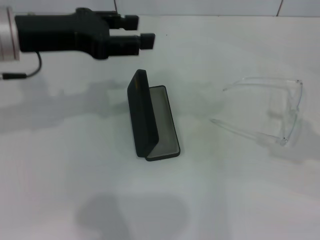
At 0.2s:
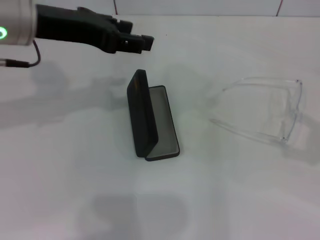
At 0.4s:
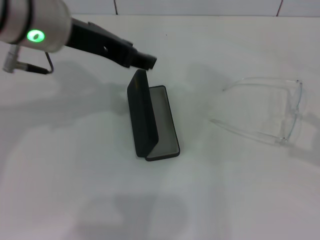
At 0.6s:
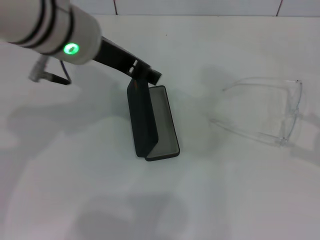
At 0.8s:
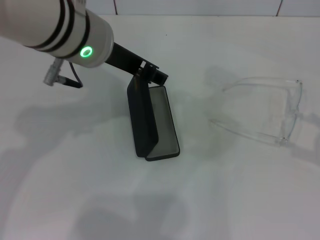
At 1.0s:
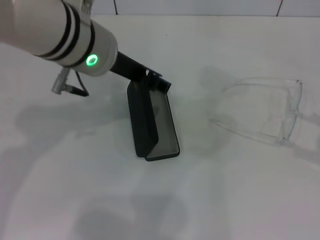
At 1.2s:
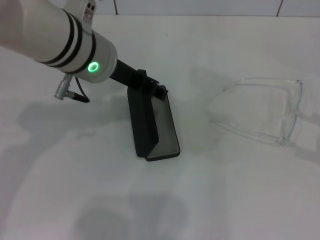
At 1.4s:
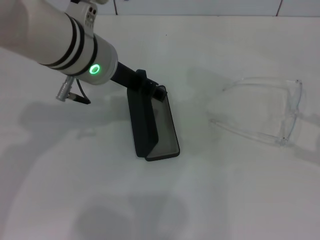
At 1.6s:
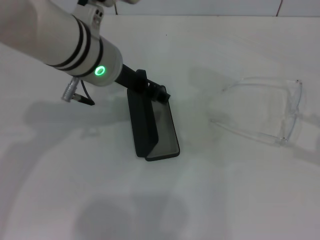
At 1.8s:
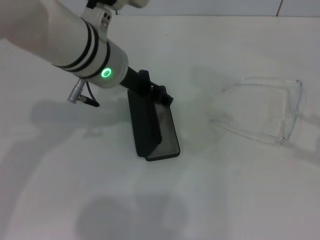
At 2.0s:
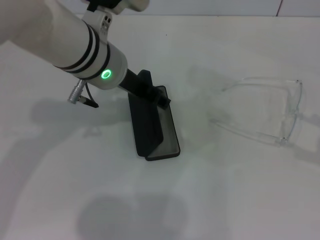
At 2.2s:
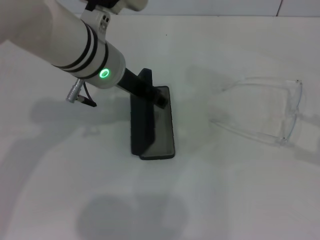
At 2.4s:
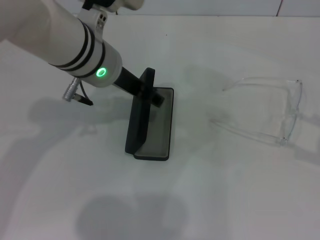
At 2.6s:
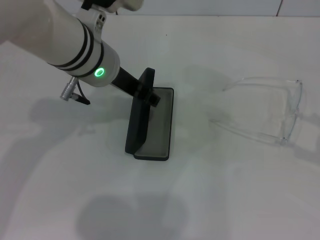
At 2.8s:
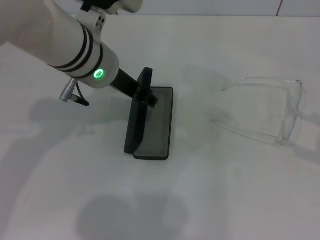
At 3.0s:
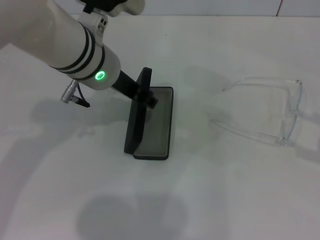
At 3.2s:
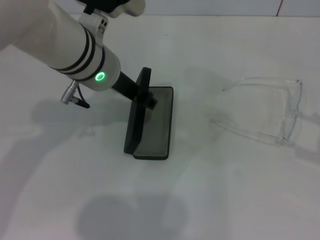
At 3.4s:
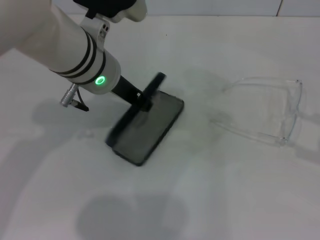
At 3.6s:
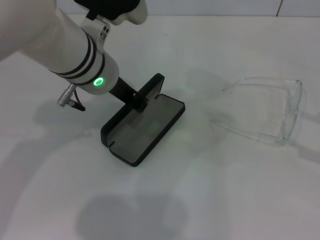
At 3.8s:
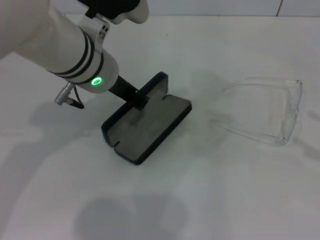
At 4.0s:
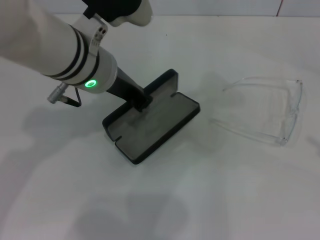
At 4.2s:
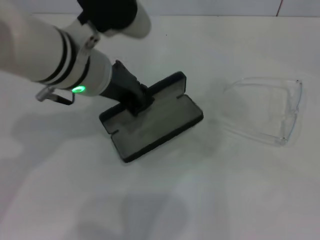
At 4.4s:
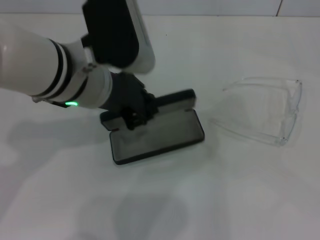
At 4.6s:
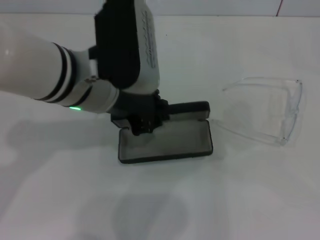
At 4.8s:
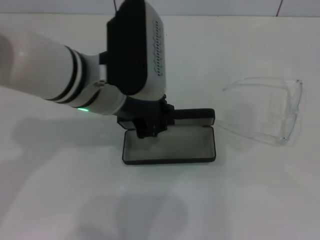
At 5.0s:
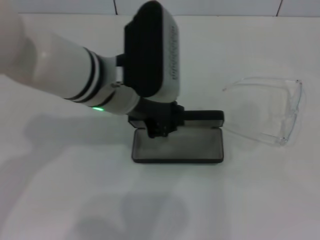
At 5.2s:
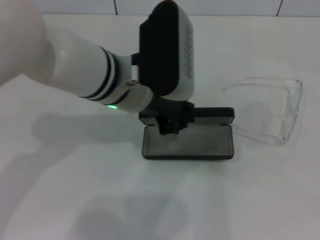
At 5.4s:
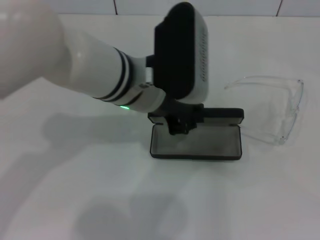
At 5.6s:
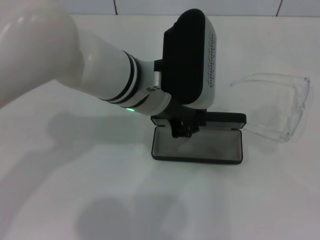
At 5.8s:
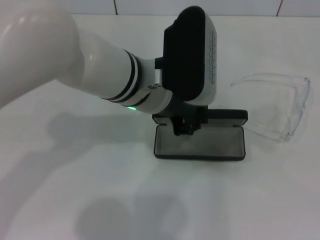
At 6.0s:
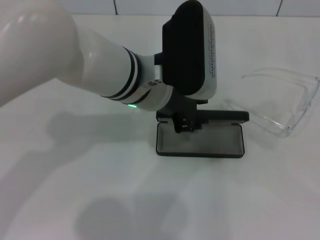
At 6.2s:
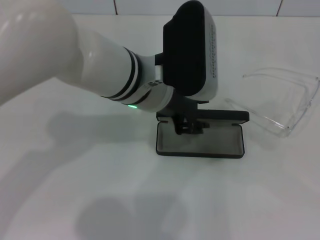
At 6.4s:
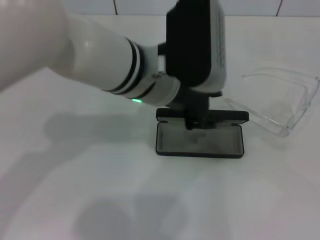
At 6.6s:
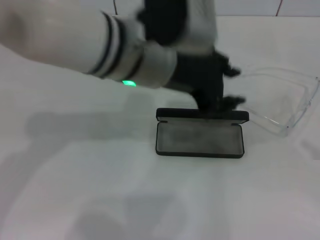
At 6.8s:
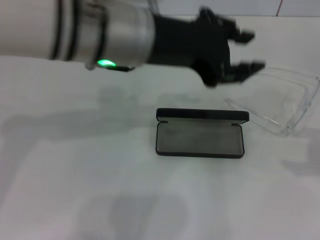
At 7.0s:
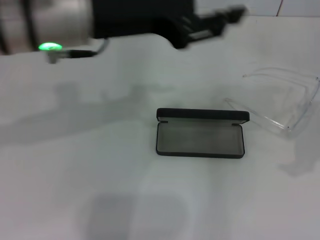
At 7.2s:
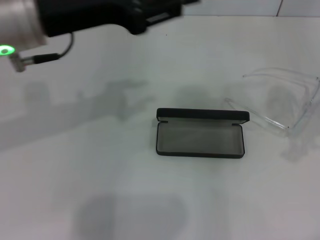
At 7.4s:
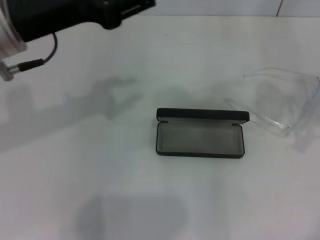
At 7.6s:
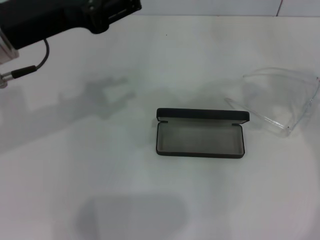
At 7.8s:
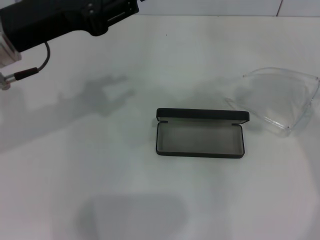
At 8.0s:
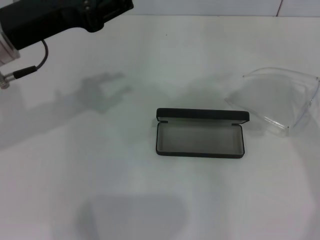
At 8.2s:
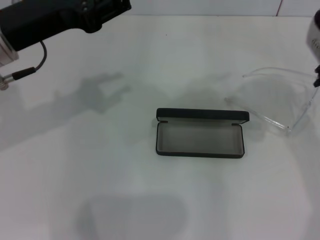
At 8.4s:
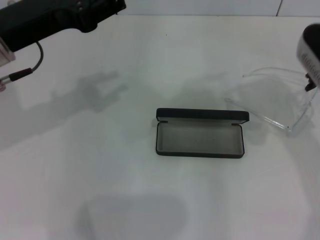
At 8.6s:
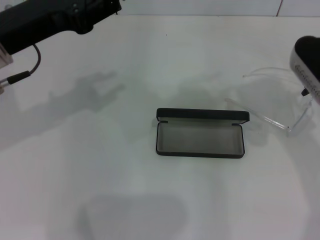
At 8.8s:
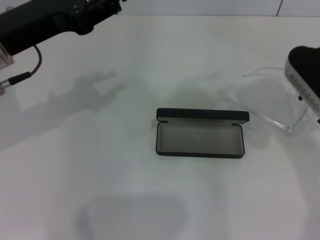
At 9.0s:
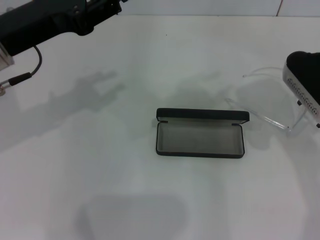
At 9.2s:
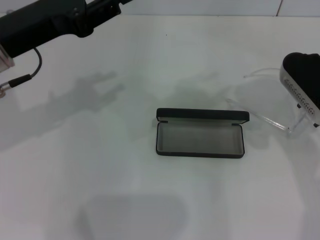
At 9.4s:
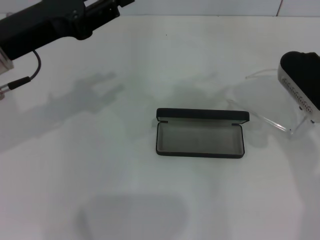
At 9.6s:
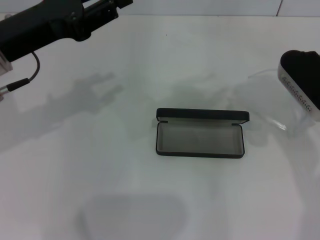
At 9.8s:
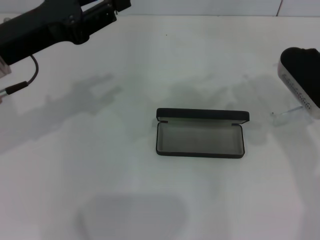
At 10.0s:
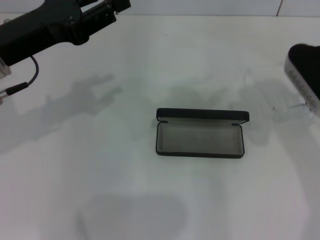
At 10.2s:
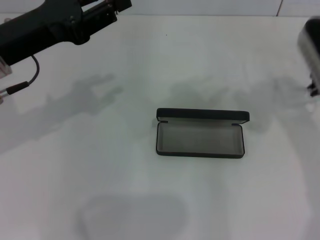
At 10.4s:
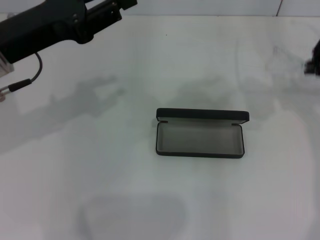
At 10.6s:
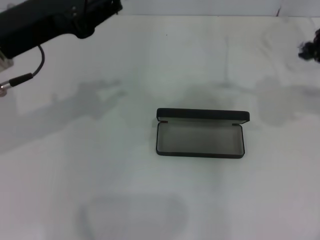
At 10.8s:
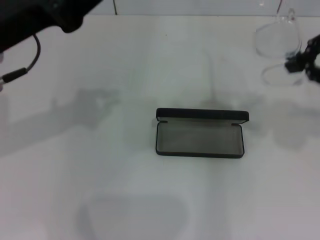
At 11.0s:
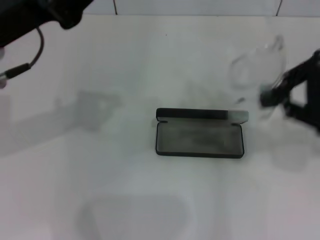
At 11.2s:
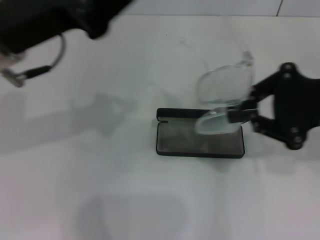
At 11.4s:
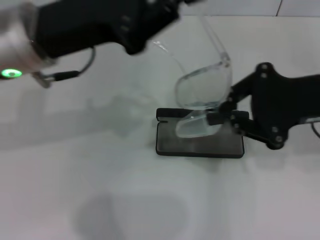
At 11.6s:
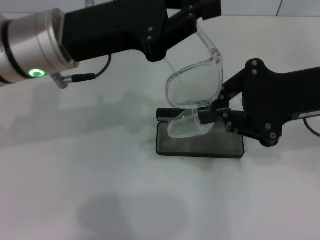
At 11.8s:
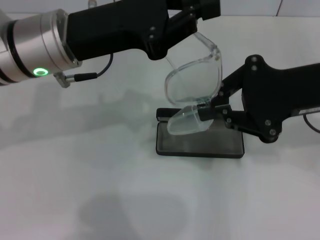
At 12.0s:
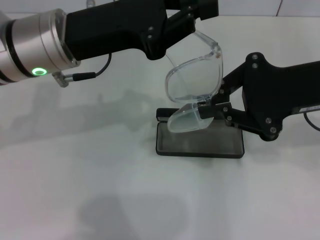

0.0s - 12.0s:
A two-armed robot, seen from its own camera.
Step, 0.0s - 4.0s: Grab the glasses case with your left hand.
Step, 4.2s - 6.2s: Place the glasses case in the center of the table with your left hand.
Step, 6.4s - 9.2s: Grab the eyeglass frame with your right hand.
0.0s - 1.6s: The left gripper travels to the right by about 10 cm.
1.6s - 3.0s: The grippers stay close to where they were, moving slightly.
3.0s - 4.4s: The right gripper is displaced backward by some 10 cm. The left gripper closes its fingers.
4.4s - 6.0s: The left gripper shifts approximately 5 cm to the right.
6.0s - 7.6s: The left gripper shifts approximately 15 cm to the left, and opens, while the right gripper goes roughly 30 cm forward, to the left and upward.
7.6s - 9.0s: The right gripper is displaced downward and to the left by some 15 cm.
9.0s - 10.4s: The right gripper moves upward and to the right, roughly 10 cm, and closes.
10.4s - 12.0s: The left gripper goes roughly 5 cm to the right, and closes up. The right gripper is displaced backward by approximately 10 cm.

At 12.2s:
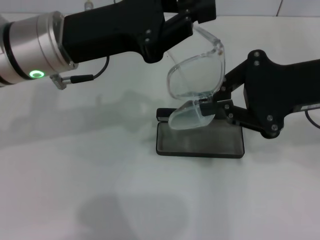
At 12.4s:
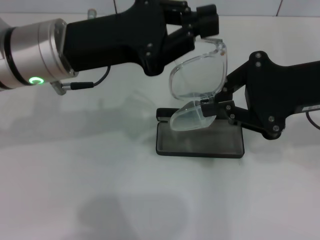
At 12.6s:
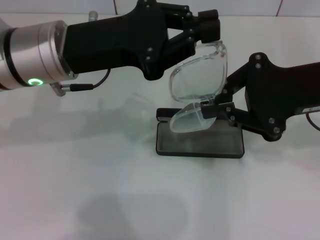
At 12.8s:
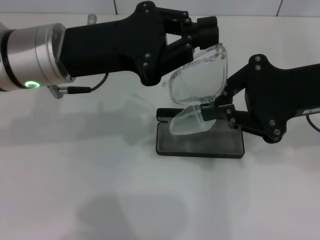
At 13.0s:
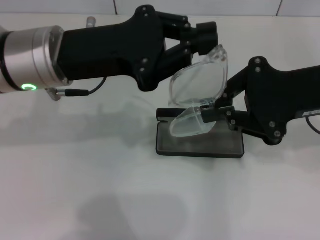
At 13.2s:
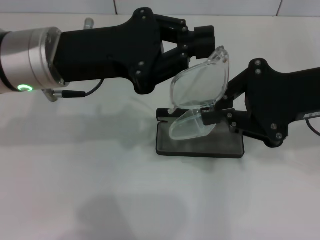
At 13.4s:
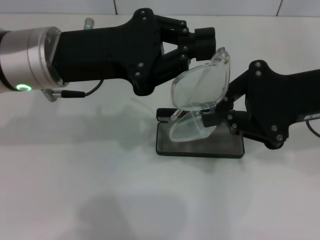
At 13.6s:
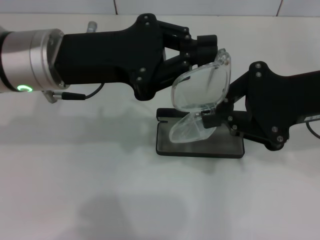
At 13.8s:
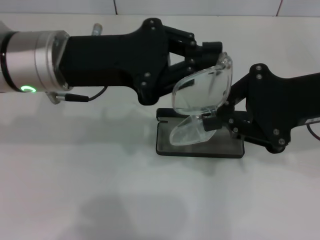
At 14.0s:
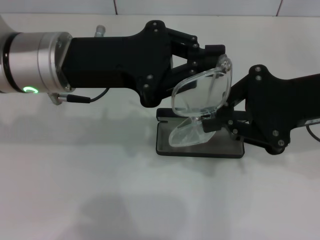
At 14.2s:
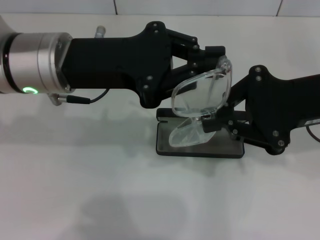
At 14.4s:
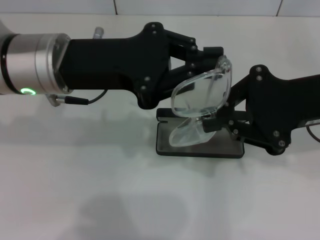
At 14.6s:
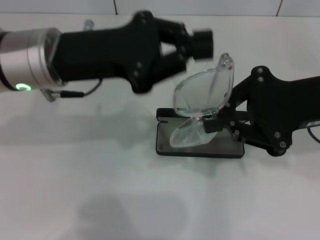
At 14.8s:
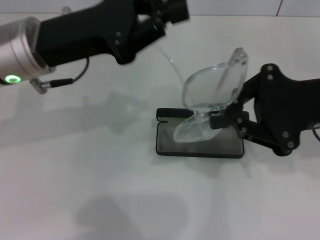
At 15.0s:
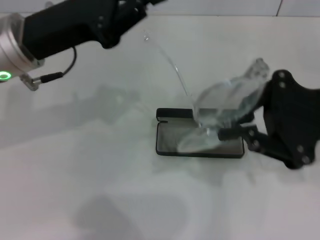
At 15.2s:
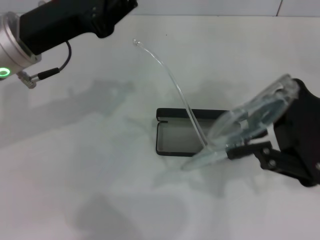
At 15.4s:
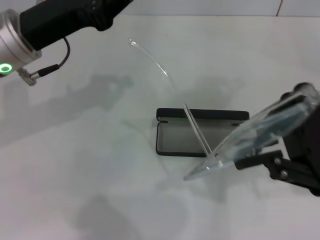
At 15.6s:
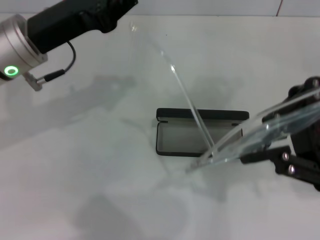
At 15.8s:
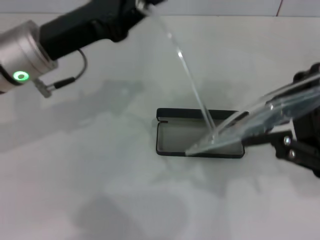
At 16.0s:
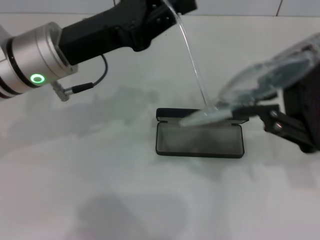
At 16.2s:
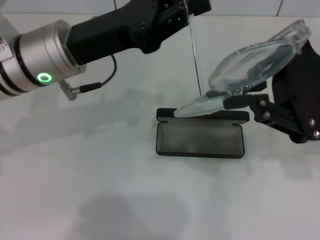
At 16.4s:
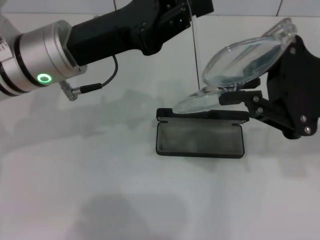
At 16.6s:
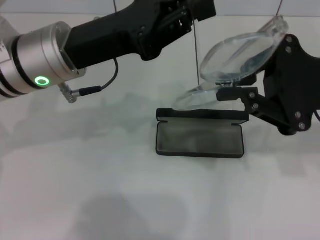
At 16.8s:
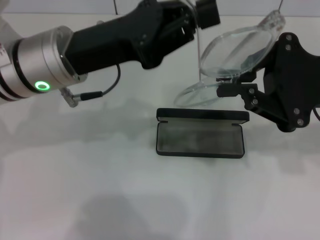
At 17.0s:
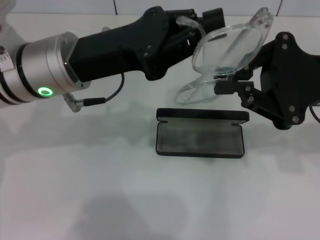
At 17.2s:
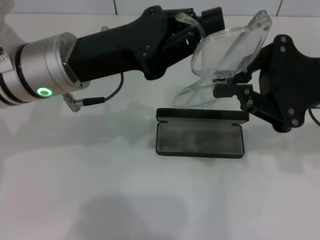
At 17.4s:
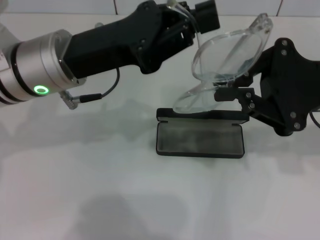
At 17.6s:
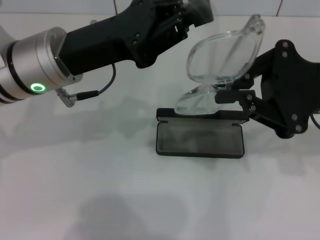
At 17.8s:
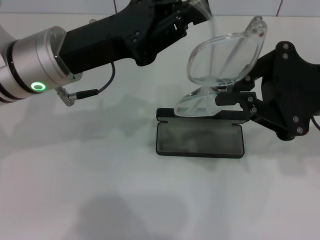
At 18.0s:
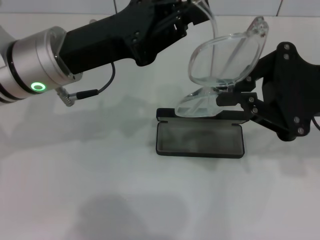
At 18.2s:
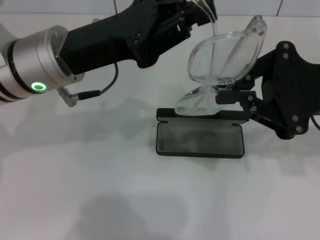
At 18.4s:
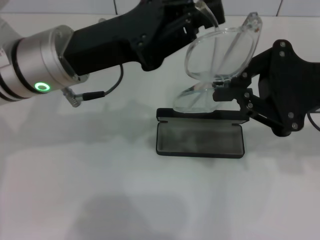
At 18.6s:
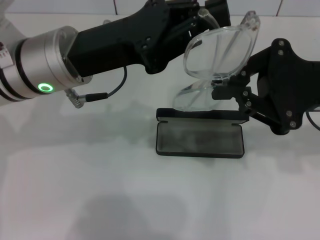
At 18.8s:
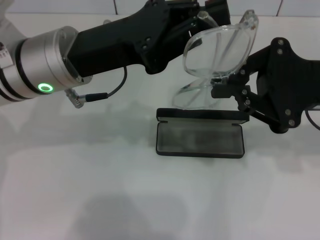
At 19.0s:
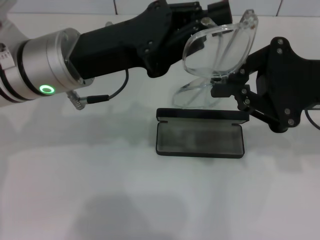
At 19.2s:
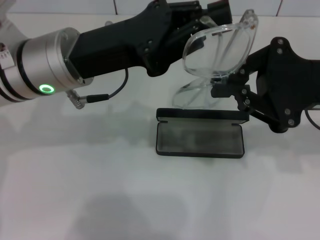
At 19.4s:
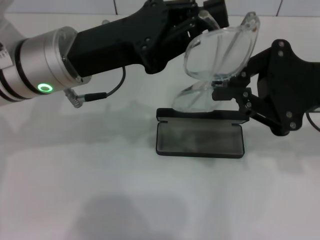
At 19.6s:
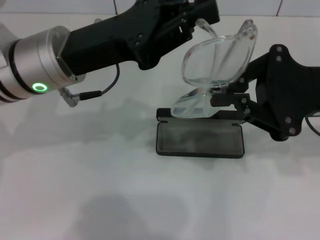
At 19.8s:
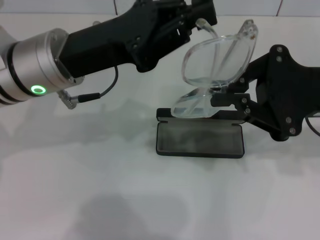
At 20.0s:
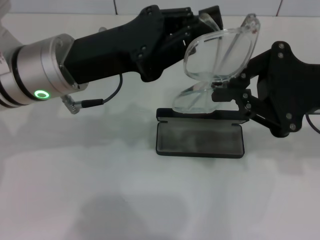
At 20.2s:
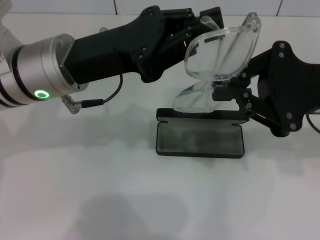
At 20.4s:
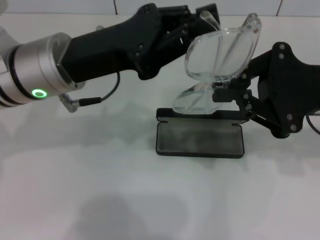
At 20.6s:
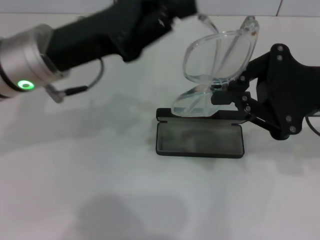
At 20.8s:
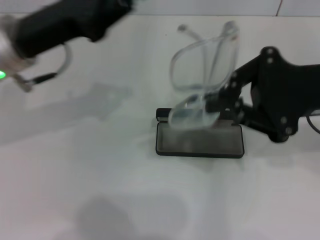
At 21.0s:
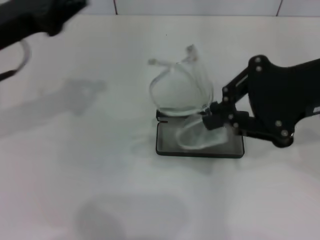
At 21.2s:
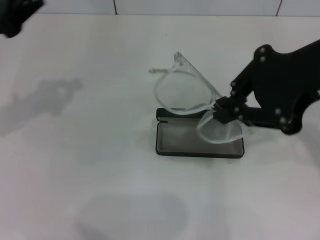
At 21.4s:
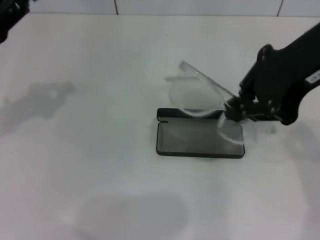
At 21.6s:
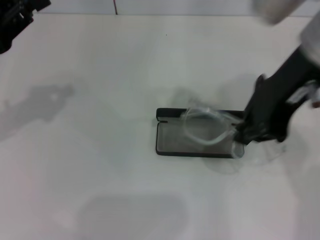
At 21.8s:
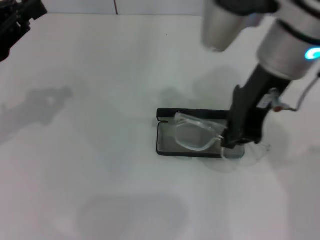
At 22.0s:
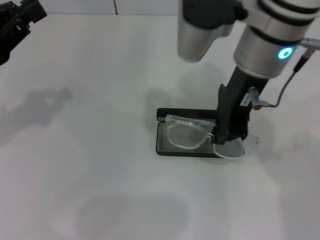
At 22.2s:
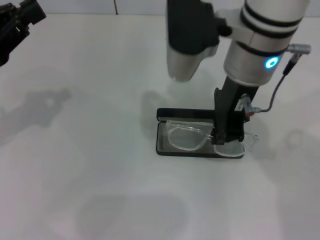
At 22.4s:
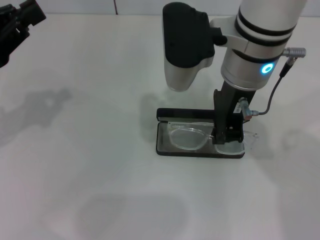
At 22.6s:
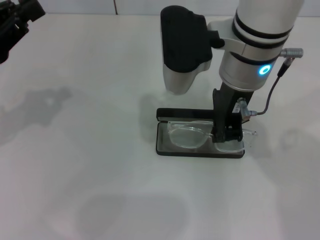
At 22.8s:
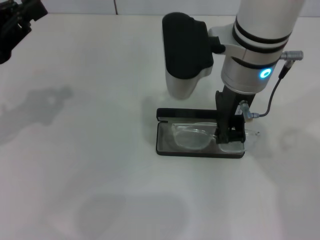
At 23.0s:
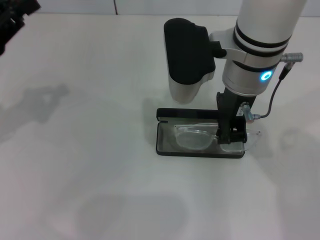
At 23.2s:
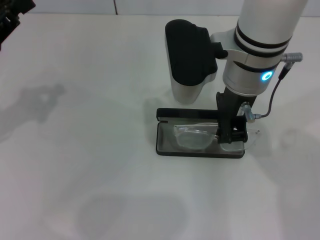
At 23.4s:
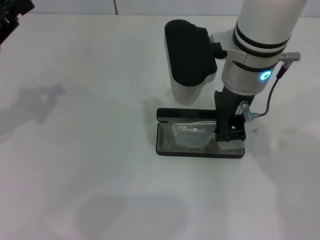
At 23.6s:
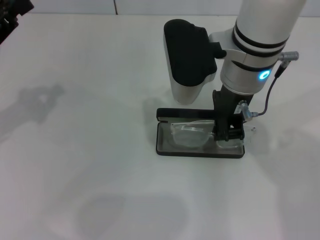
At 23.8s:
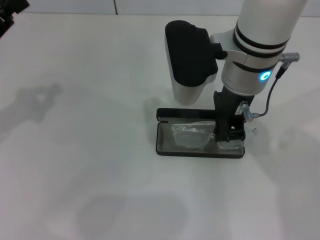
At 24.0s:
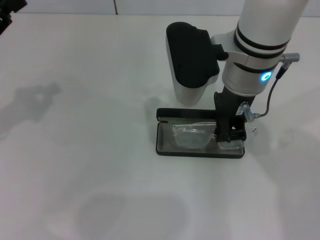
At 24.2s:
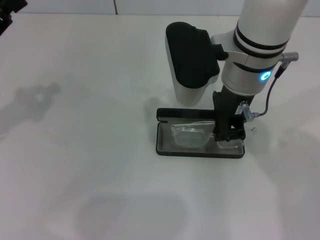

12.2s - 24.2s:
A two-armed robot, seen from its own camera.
Step, 12.2s - 19.8s: Fold the frame with your left hand.
13.8s - 15.2s: The left gripper ends up roughly 5 cm from where it was.
15.2s - 16.6s: The left gripper moves roughly 5 cm.
16.6s - 18.2s: Both grippers stay put.
18.2s - 19.8s: Neither gripper changes place.
19.8s - 21.2s: The left gripper goes some 15 cm to the left, while the right gripper is displaced upward by roughly 10 cm.
21.2s - 22.6s: The right gripper goes roughly 15 cm to the left, downward and forward.
22.6s - 24.2s: The grippers move only a little.
